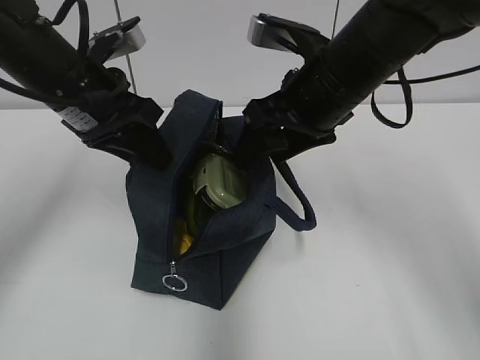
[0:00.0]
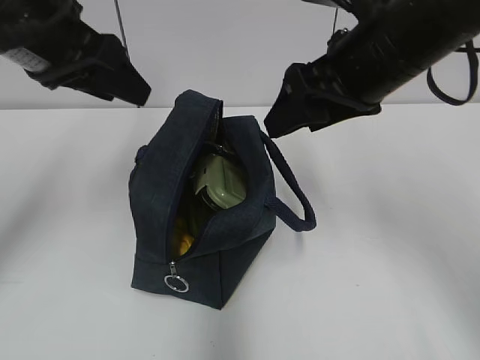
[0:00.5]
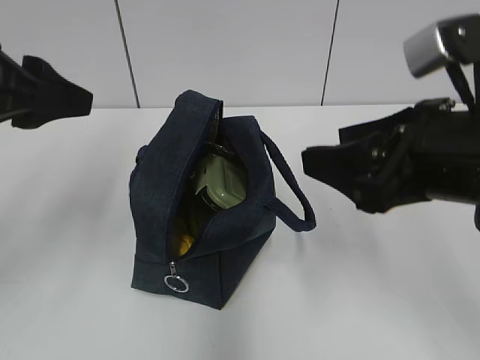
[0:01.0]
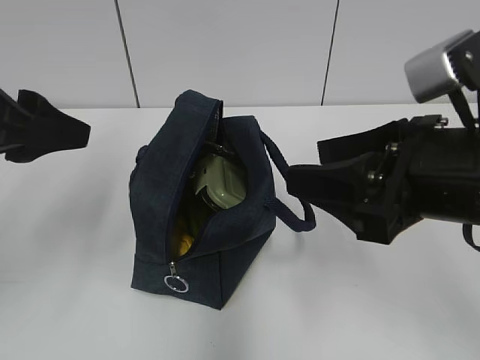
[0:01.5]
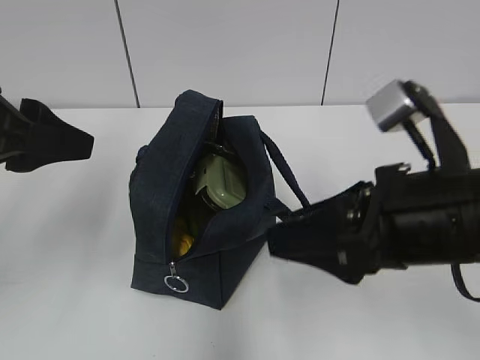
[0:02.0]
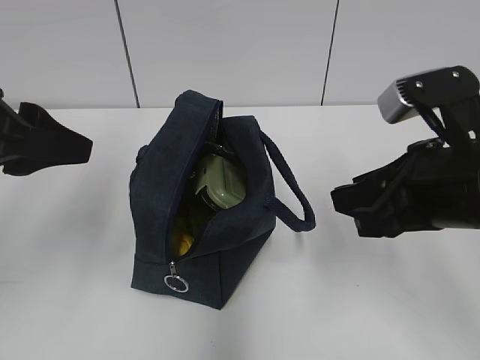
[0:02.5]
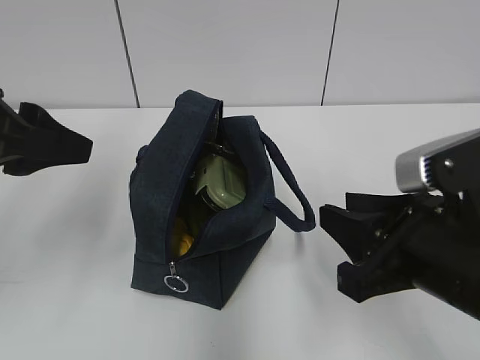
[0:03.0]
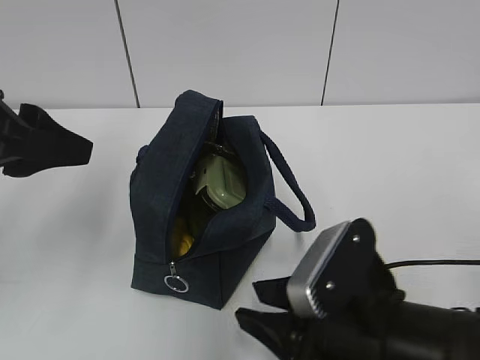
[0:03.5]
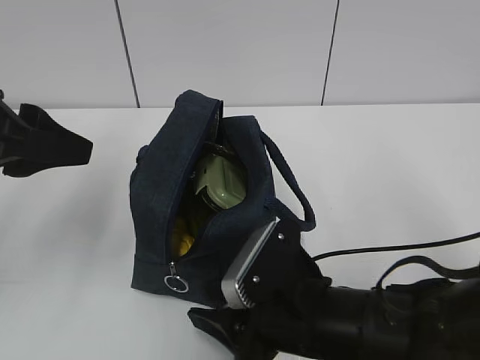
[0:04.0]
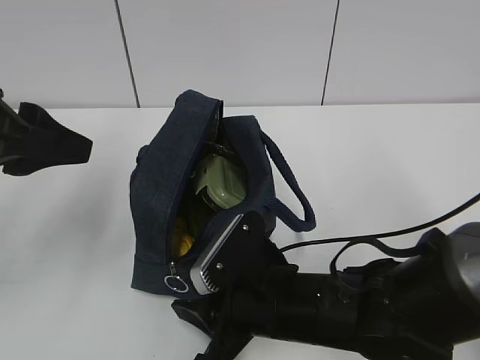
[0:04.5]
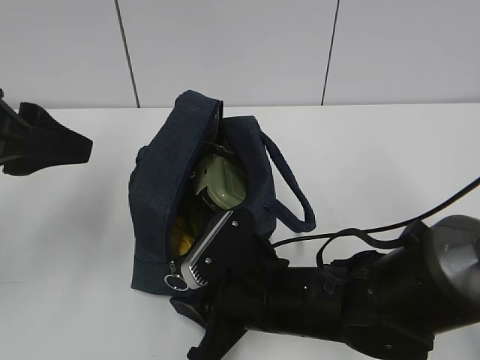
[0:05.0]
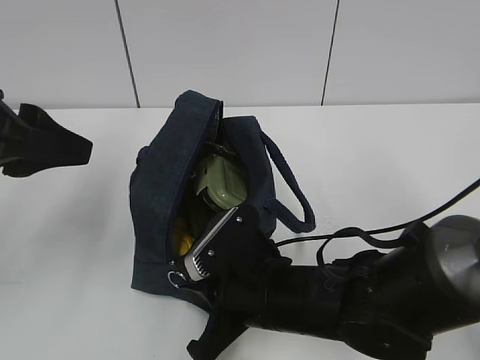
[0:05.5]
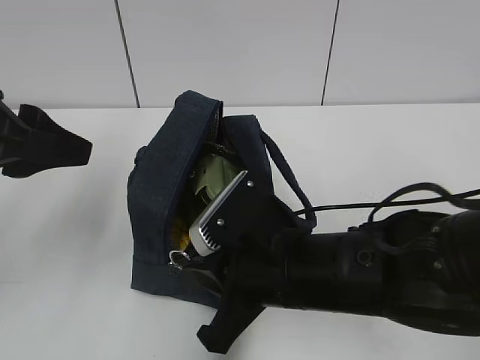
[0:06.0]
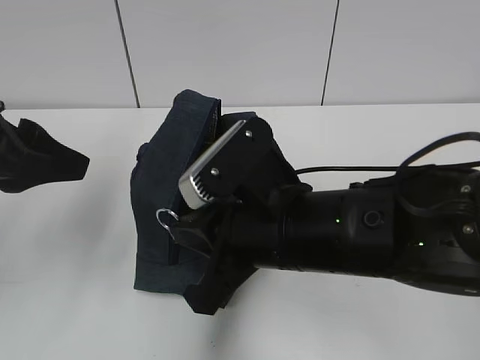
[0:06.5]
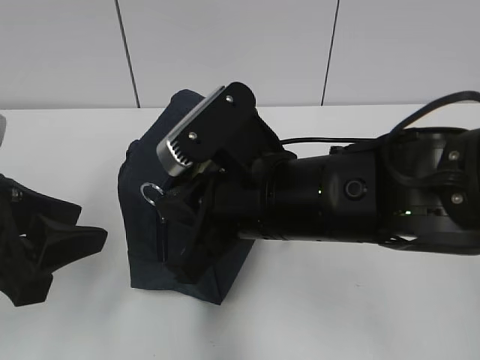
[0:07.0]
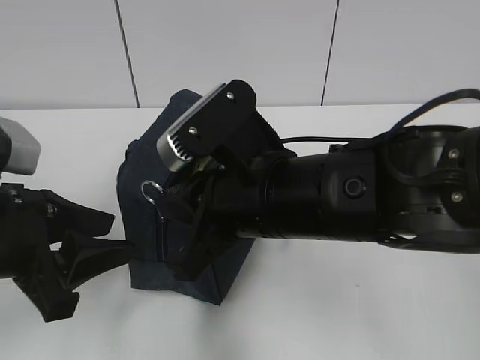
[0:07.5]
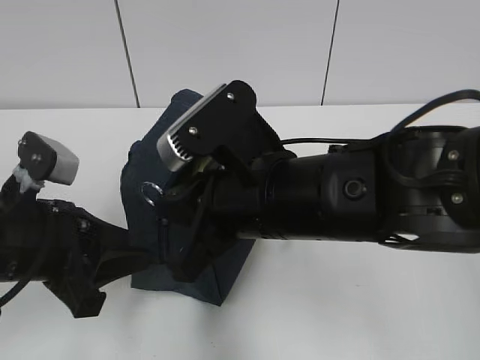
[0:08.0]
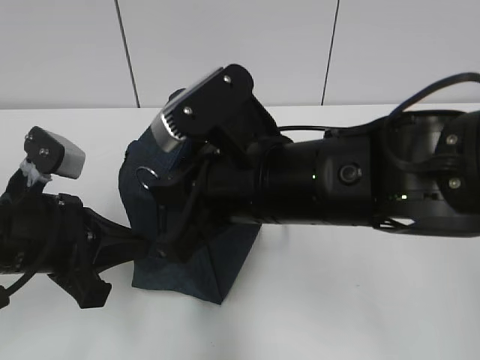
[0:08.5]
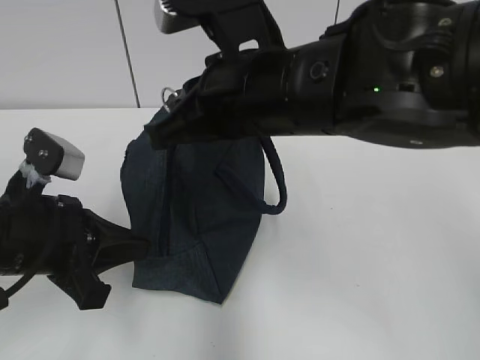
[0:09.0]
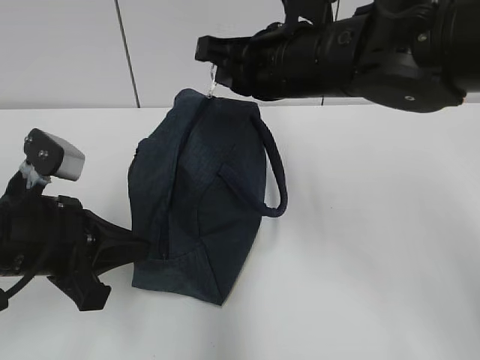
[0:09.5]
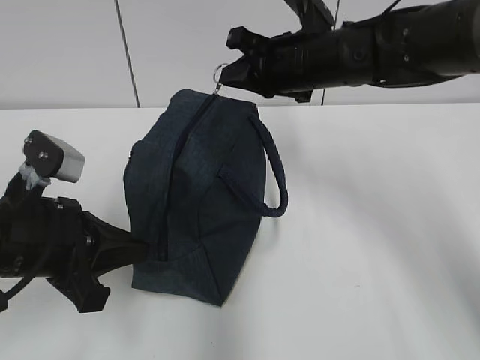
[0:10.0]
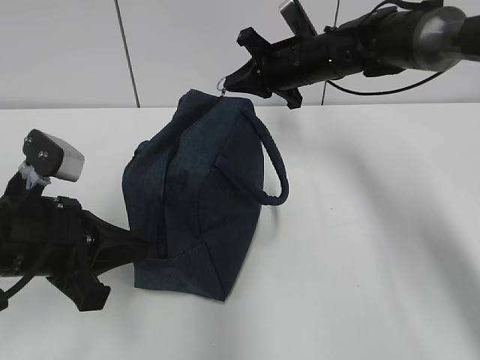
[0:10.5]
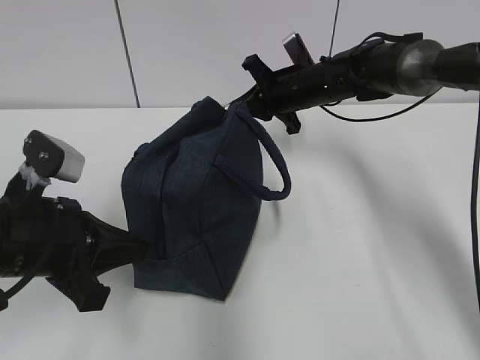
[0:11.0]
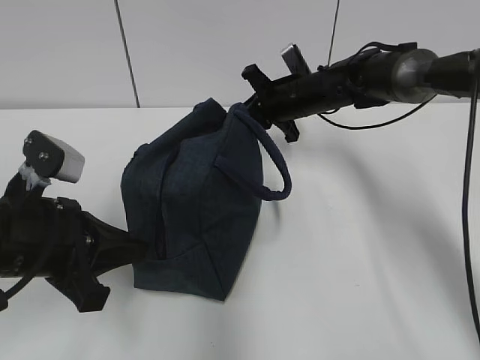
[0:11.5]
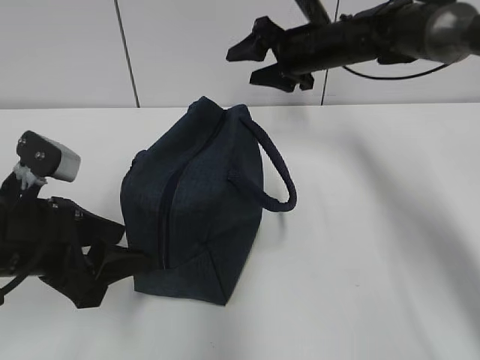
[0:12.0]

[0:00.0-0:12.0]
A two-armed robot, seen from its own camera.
Step, 0:00.5 to 0:11.5: Pull the zipper with your right hand.
0:00.0 to 0:02.0: The right gripper goes about 15 cm backward. Meanwhile the left gripper goes approximately 15 cm backward and to the left.
0:02.0 to 0:04.0: The right gripper goes approximately 15 cm downward and to the left.
0:04.0 to 0:06.0: The right gripper ends up roughly 5 cm from where it was, and closes its fingers.
0:06.0 to 0:08.0: The right gripper travels upward by approximately 5 cm, while the left gripper heads downward, covering about 10 cm.
0:08.0 to 0:10.0: The left gripper closes up, while the right gripper is displaced forward by roughly 20 cm.
0:10.0 to 0:12.0: The right gripper is displaced forward by some 10 cm, travels downward and back again, roughly 10 cm each way, and opens. The left gripper opens its fingers.

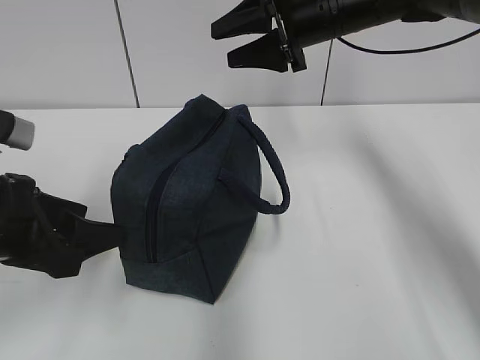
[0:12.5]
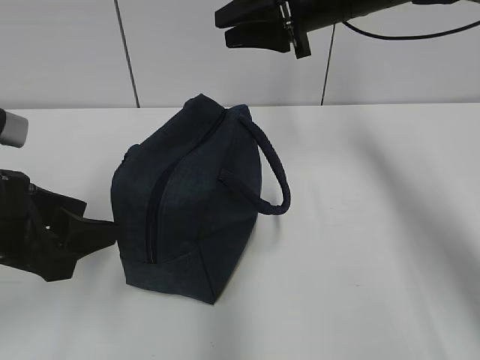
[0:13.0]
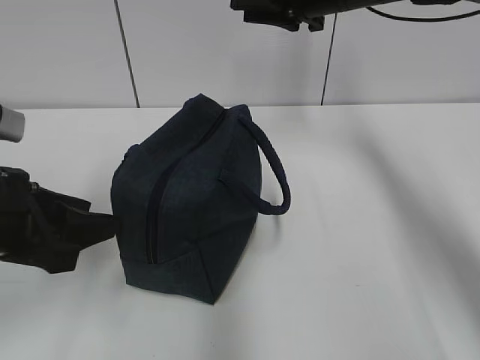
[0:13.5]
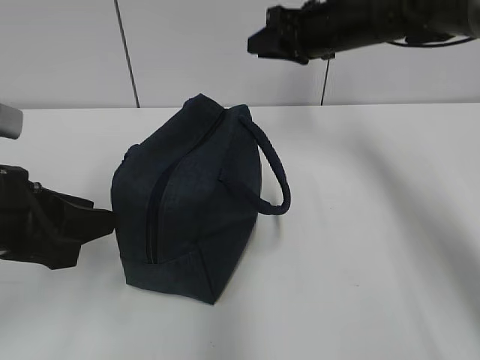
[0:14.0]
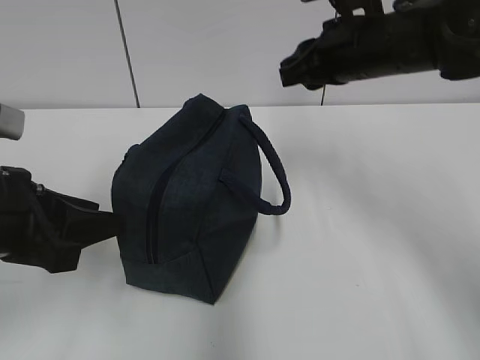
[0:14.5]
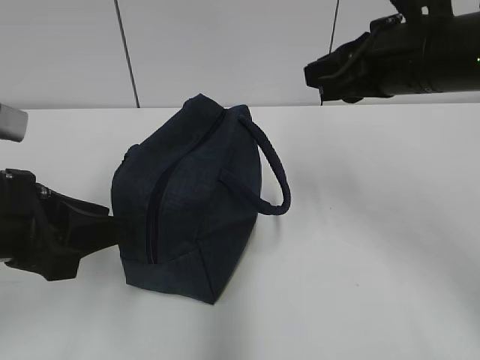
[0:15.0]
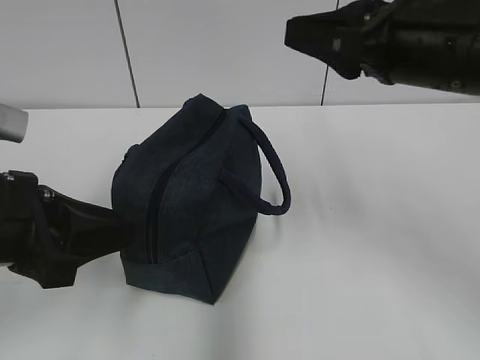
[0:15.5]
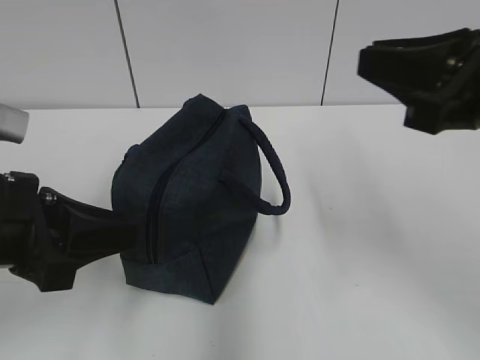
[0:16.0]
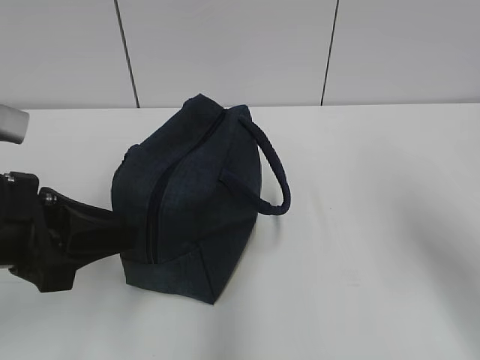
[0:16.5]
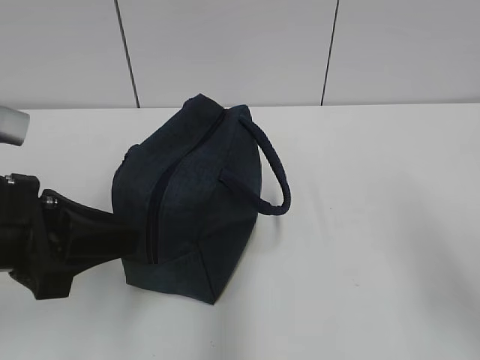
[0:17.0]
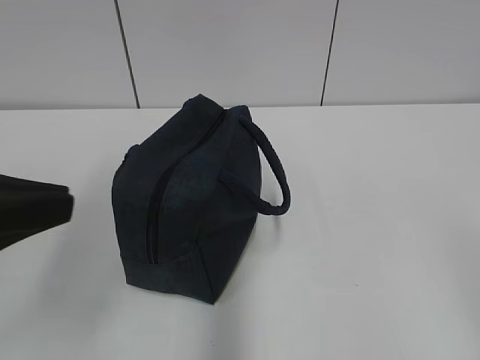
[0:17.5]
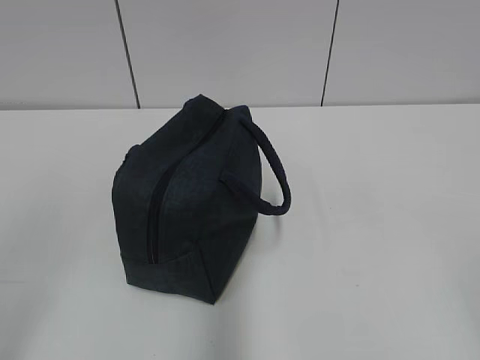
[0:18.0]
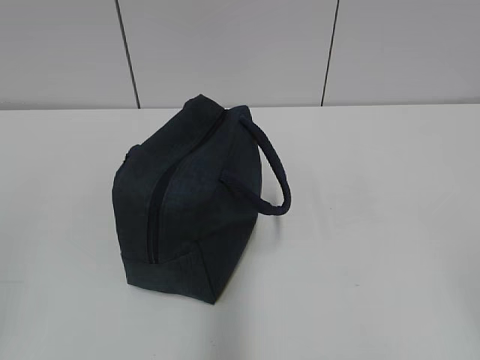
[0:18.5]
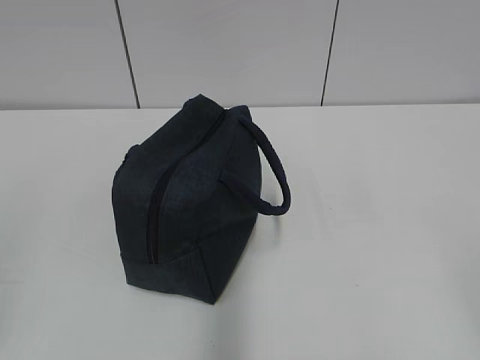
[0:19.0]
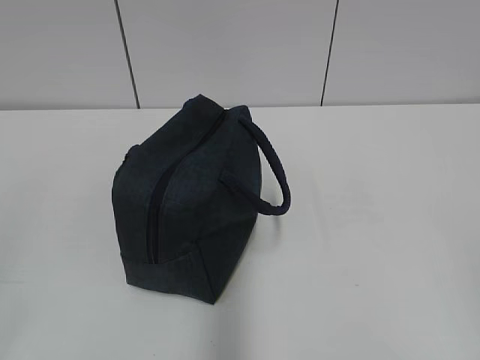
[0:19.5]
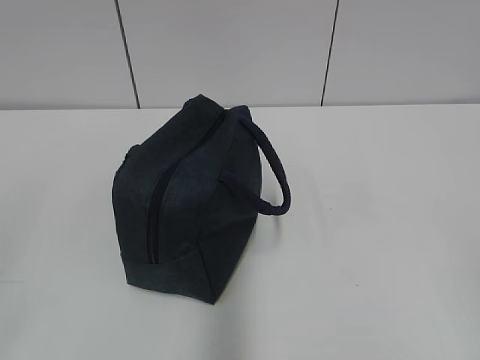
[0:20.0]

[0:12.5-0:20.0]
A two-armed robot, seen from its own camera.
0:12.5 to 0:14.5: The right gripper moves backward, roughly 5 cm, and closes up, while the left gripper closes its fingers.
0:14.5 to 0:16.5: The right gripper goes approximately 25 cm backward and to the right.
0:16.5 to 0:18.0: The left gripper shifts about 20 cm backward, to the left and upward, and closes its fingers. Meanwhile the right gripper goes about 20 cm backward.
